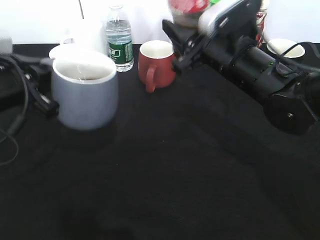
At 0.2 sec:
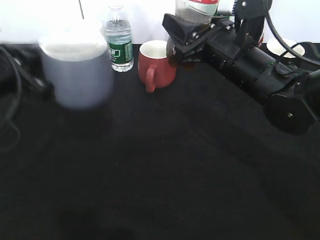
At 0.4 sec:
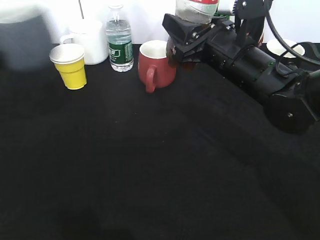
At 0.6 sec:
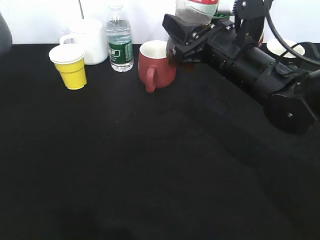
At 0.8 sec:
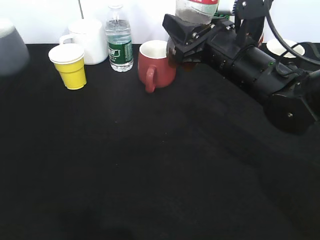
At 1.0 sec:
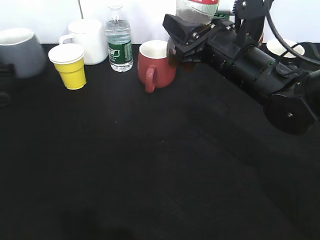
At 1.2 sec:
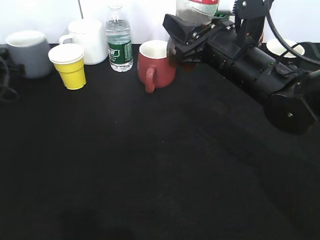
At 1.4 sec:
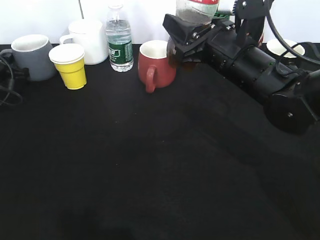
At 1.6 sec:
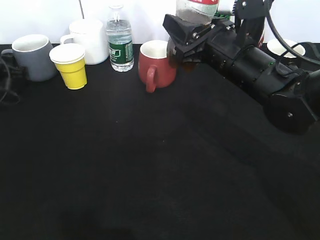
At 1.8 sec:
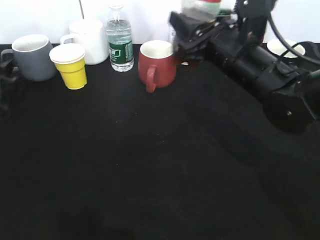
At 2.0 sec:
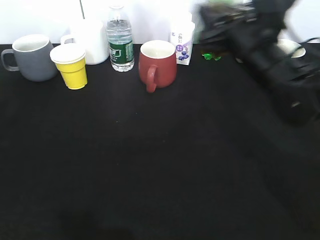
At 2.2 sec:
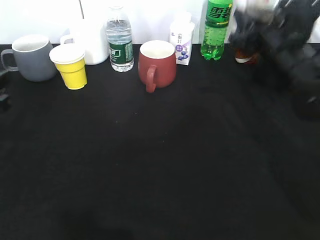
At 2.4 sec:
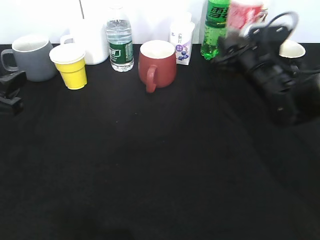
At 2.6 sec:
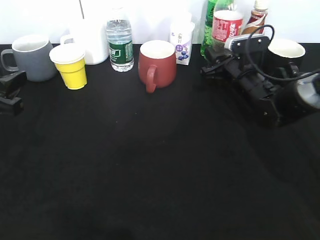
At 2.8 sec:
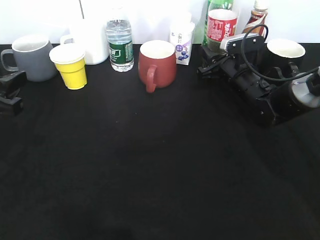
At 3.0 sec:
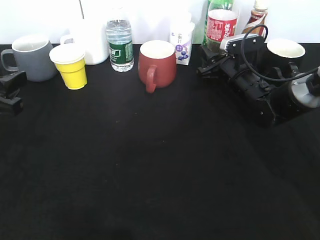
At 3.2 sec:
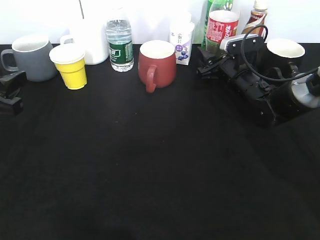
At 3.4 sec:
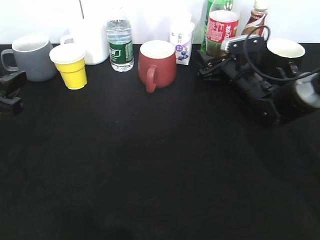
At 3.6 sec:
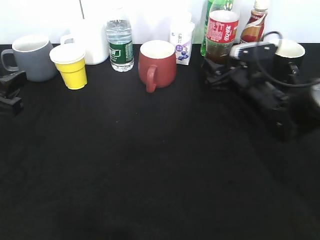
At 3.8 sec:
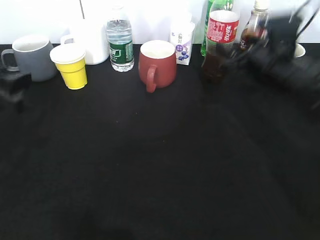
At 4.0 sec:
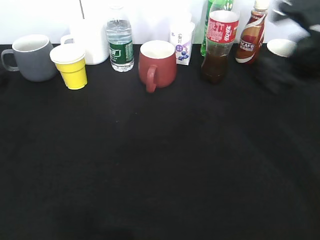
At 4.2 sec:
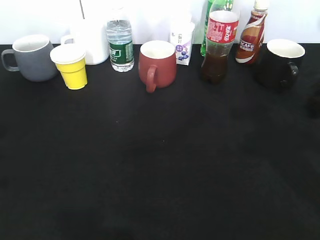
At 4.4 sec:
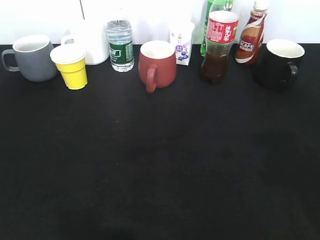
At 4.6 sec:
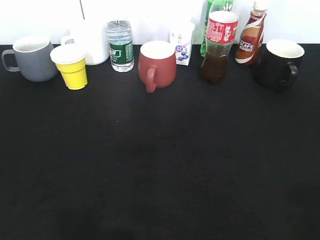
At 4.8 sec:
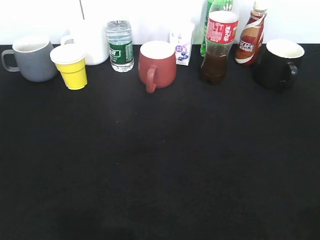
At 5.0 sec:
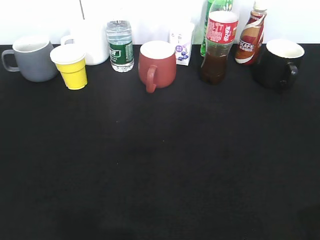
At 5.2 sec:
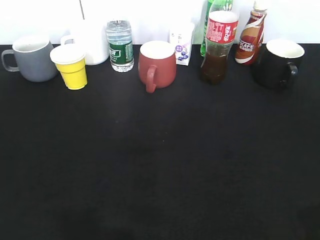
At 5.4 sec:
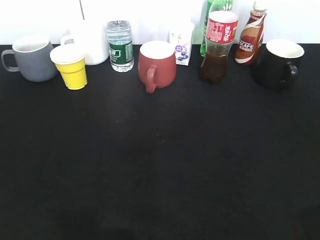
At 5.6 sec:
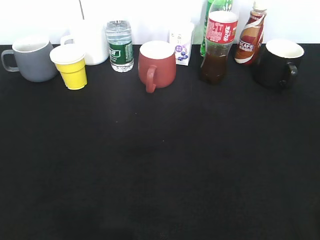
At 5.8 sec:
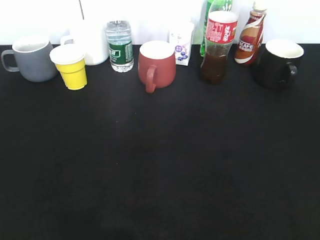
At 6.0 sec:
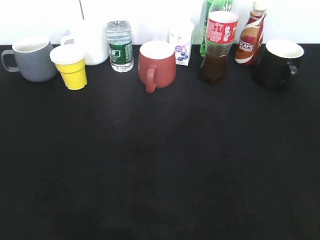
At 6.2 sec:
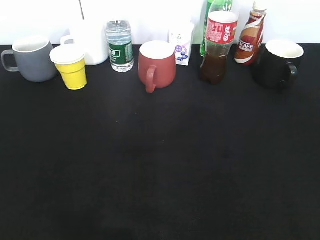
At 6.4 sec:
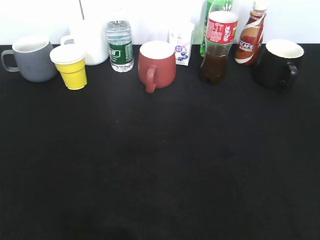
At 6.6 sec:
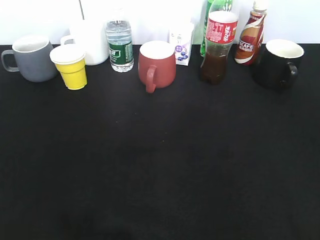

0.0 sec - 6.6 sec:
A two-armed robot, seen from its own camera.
Step, 0.0 sec - 1.0 sec: Place the grey cup on the table with left gripper.
0.0 sec - 1.6 sec: The left gripper heads forward, to the left and downward, covering approximately 25 cm, and opens up.
1.6 sec - 3.2 sec: The left gripper moves backward, to the right and upward, about 25 cm. The right gripper shifts roughly 15 cm downward, forward and to the right, and opens up.
3.2 sec - 5.0 sec: The left gripper is displaced backward and upward by some 20 cm. Meanwhile the right gripper is displaced backward and upward by roughly 40 cm.
